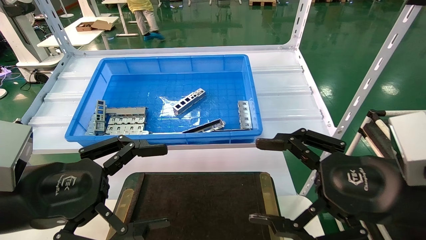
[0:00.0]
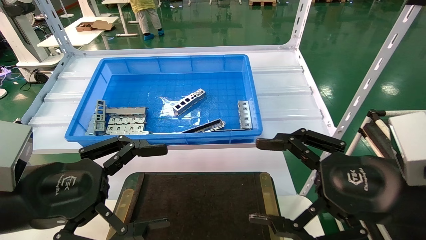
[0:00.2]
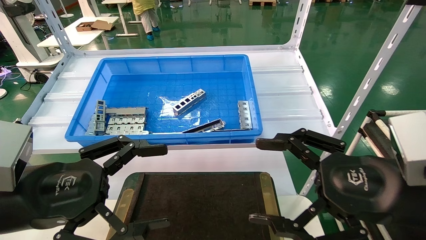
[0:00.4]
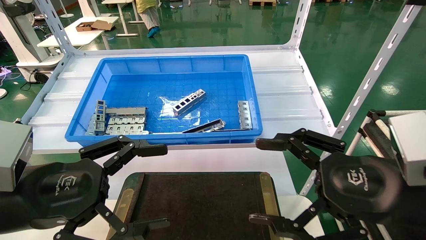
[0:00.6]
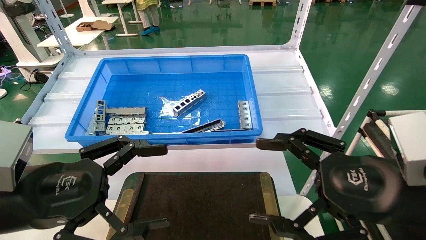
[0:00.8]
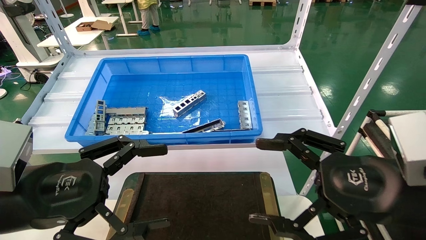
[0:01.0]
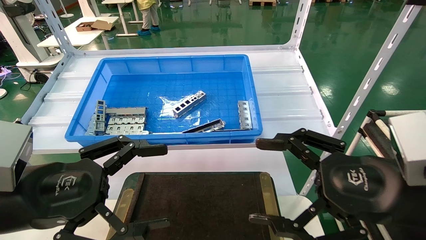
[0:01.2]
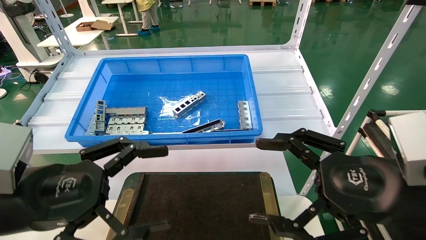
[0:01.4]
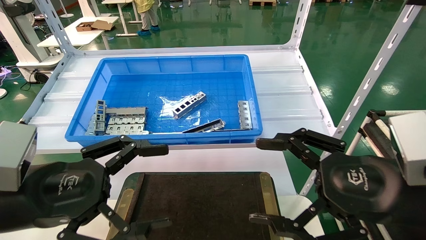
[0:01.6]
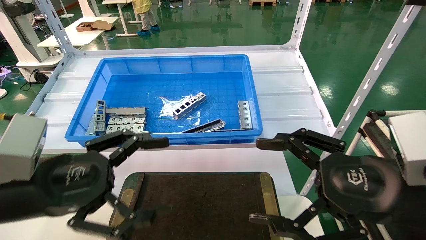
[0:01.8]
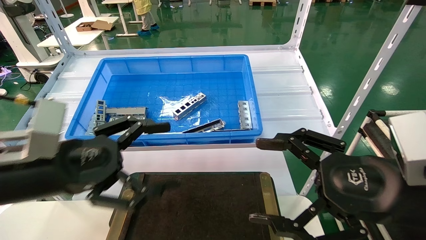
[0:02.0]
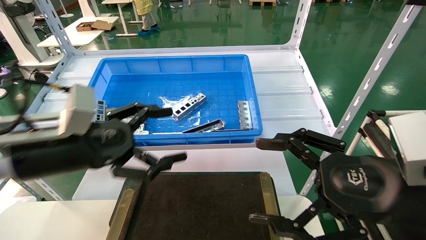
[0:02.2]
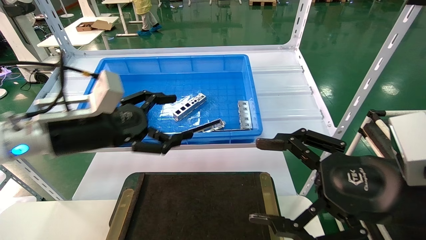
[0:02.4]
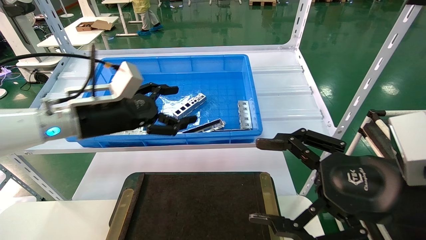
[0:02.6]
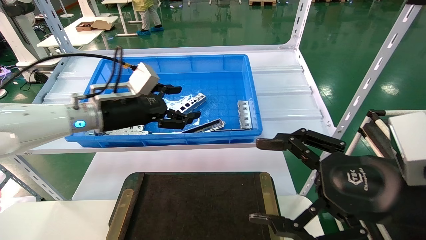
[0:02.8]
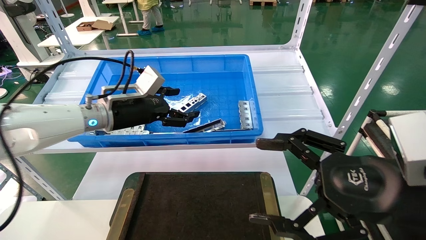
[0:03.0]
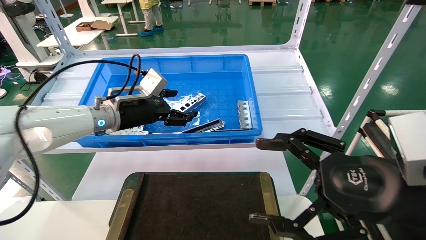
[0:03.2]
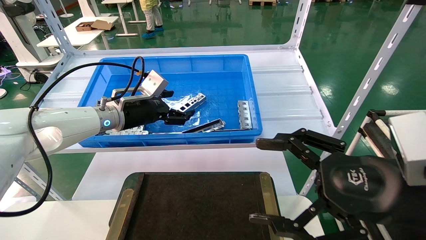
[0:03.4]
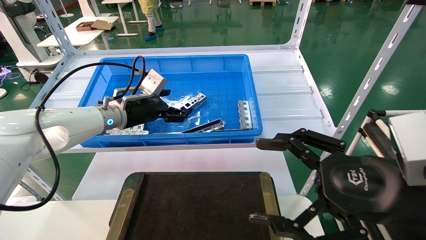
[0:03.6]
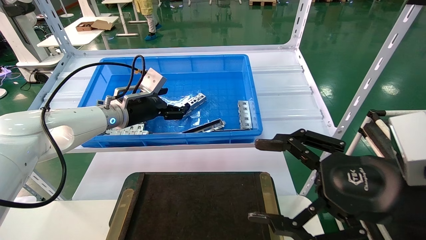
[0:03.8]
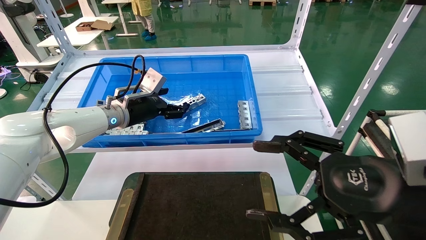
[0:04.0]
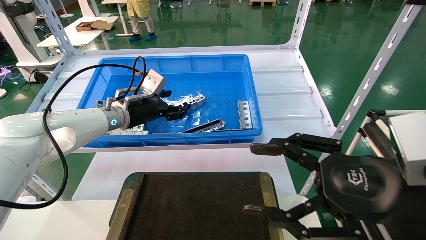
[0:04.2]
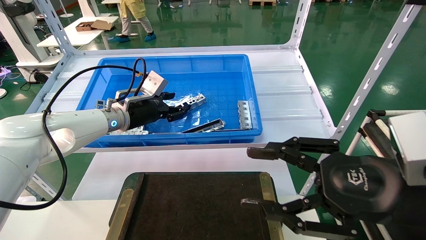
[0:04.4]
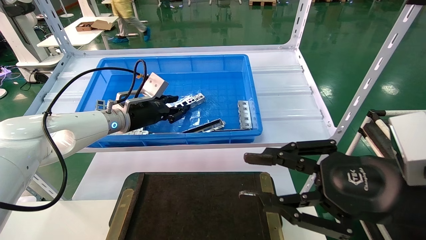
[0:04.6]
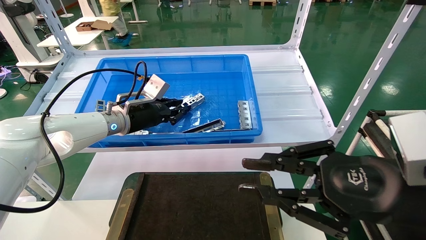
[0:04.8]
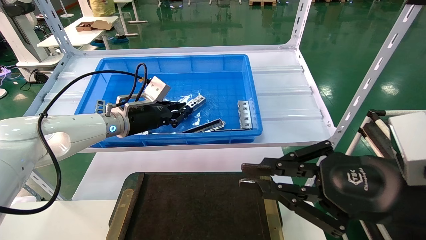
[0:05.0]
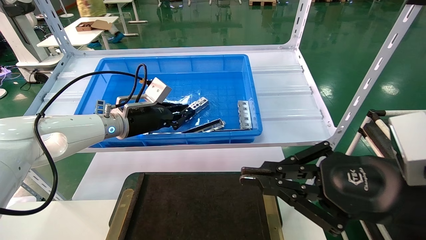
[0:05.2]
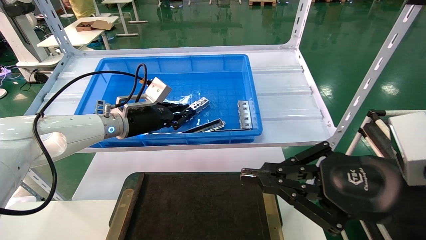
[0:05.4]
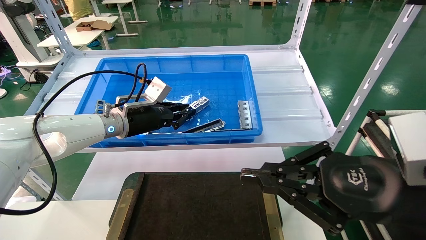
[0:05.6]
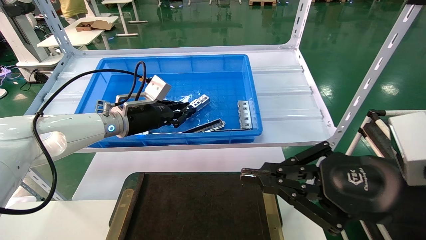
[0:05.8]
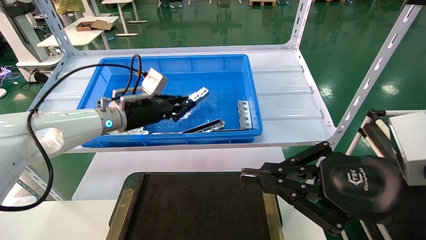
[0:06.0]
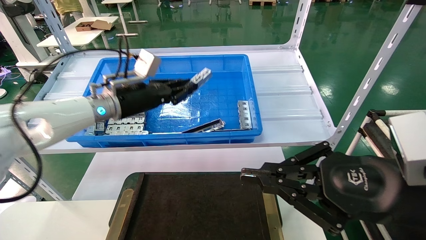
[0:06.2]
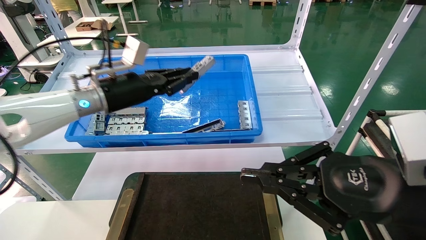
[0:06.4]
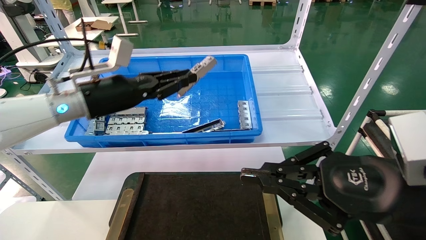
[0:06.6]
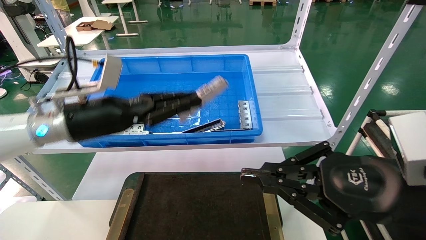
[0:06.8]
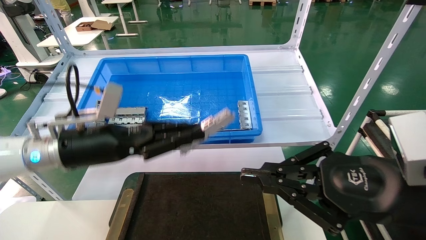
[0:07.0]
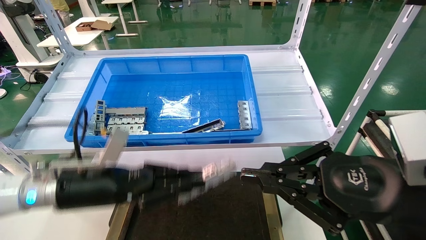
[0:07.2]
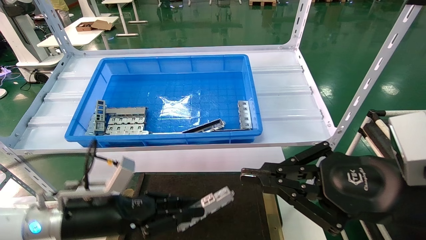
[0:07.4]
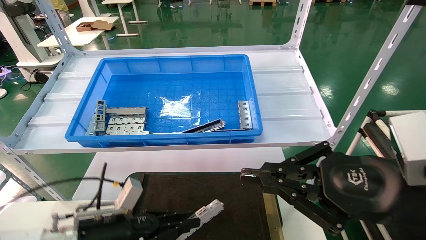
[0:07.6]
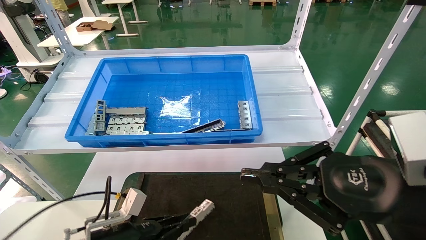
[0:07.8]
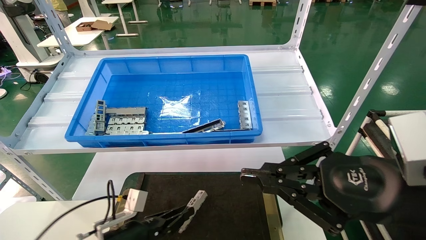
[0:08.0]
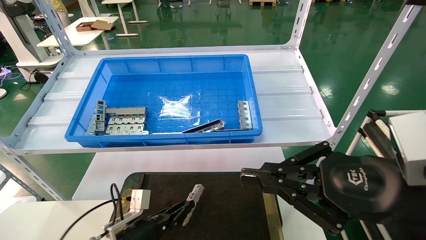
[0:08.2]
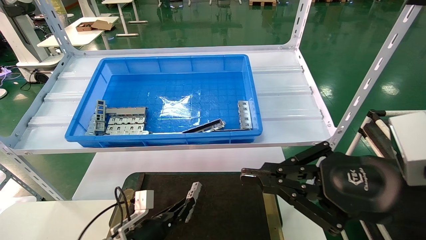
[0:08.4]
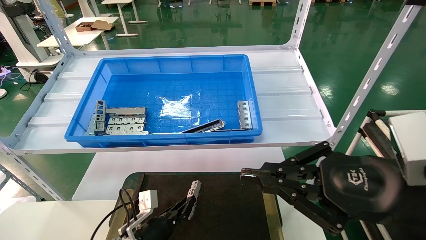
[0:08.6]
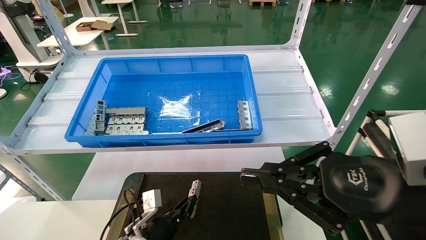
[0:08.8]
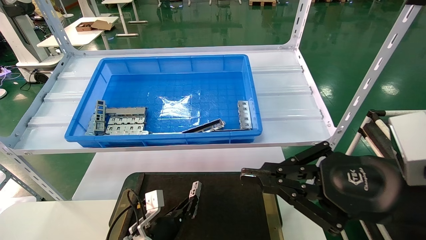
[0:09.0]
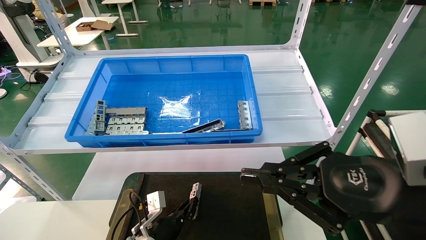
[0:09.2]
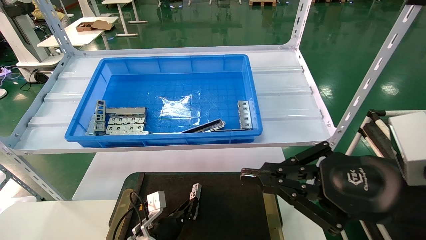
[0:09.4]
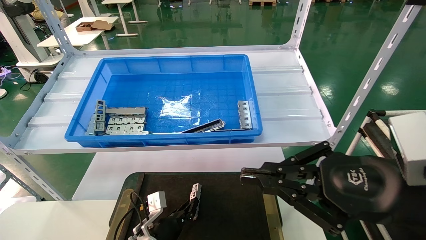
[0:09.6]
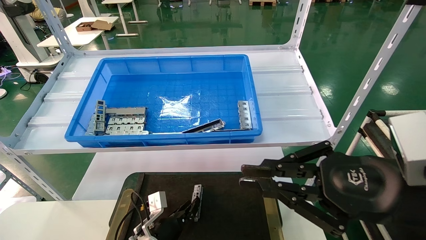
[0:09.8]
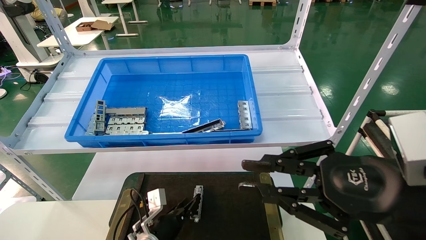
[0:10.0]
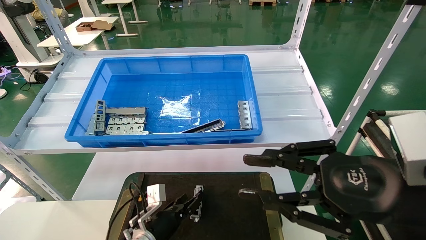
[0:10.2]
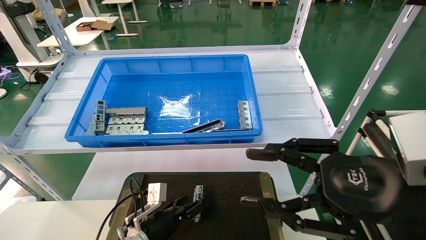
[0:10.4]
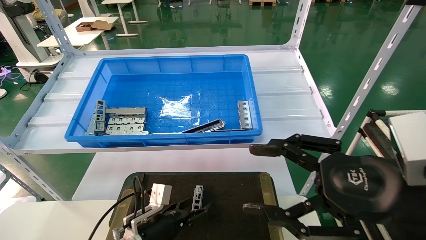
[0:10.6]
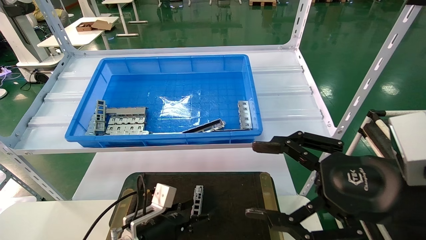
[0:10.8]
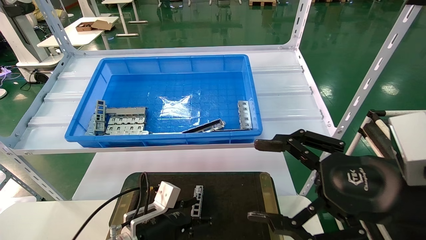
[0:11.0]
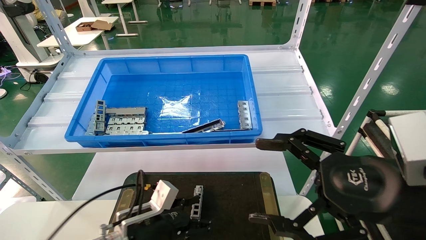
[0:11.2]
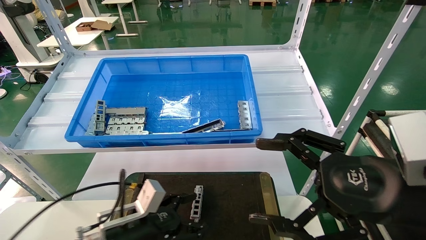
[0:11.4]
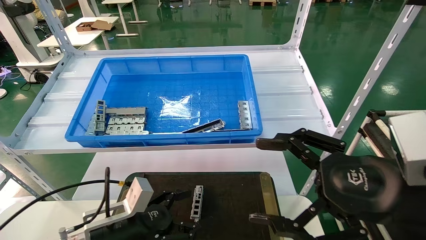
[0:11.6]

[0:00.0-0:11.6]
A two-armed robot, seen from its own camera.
Task of the whole recording: Grasp the part with one hand and place it on the black container.
Step, 2.0 to 5.2 s: Pick up the front USB bracket from the feeding area.
Step, 5.4 to 10.0 s: Place the front USB bracket into the box.
0.0 to 1.4 s: Both grippers stay put.
1.4 to 2.8 s: The left gripper shifts approximately 20 cm forward.
2.8 to 4.4 s: The left gripper heads forward, covering roughly 10 cm.
4.4 to 5.8 s: The left gripper closes, while the right gripper closes up.
5.8 to 7.2 s: The left gripper travels backward and downward by about 15 cm.
7.2 to 8.8 s: The left gripper goes roughly 25 cm downward.
8.8 to 10.2 s: The grippers move only a little.
10.2 to 11.6 s: The left gripper travels upward and backward by some 15 cm, and opens, while the right gripper opens its fingers.

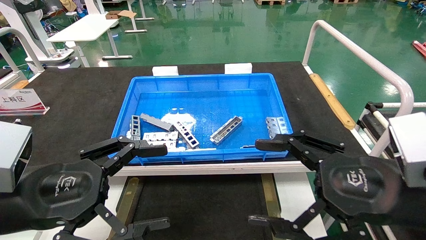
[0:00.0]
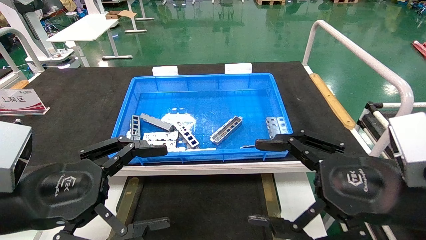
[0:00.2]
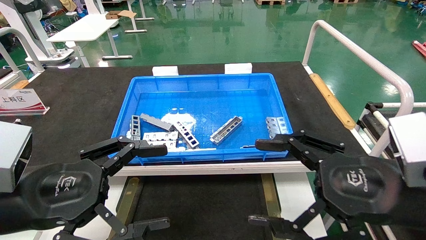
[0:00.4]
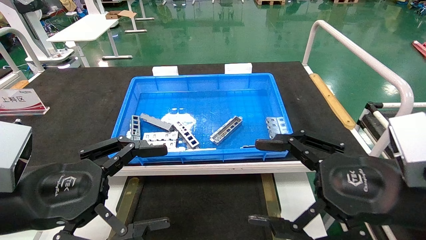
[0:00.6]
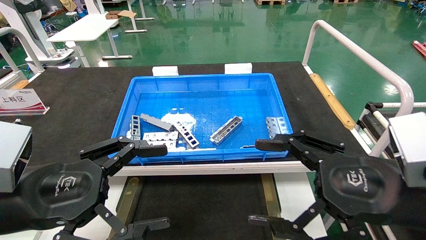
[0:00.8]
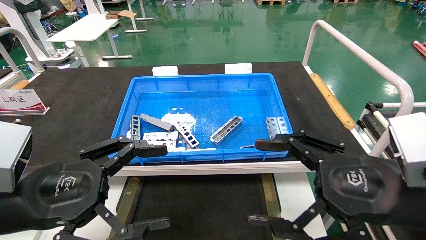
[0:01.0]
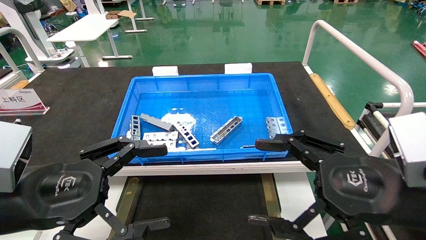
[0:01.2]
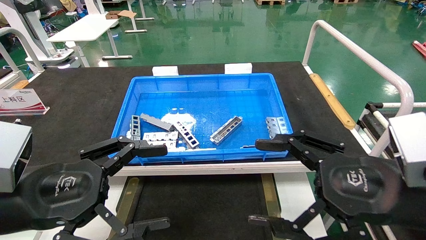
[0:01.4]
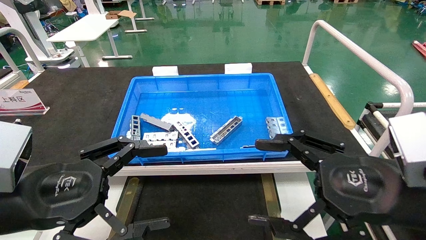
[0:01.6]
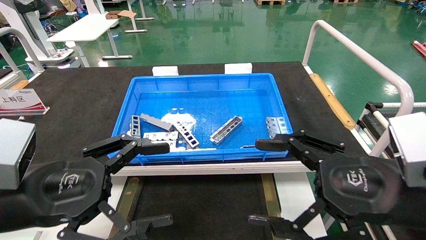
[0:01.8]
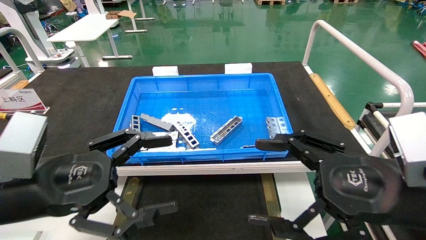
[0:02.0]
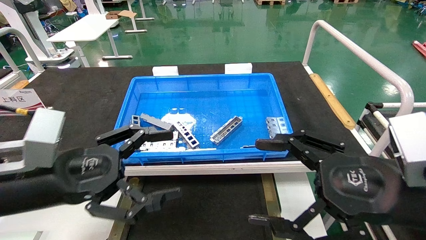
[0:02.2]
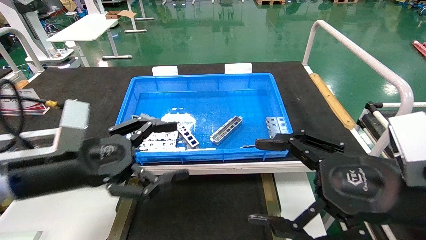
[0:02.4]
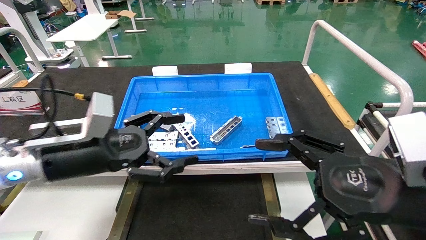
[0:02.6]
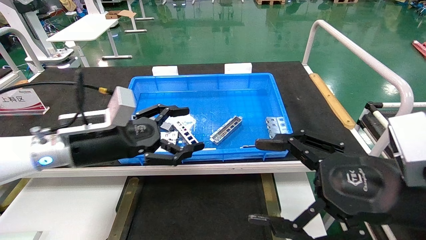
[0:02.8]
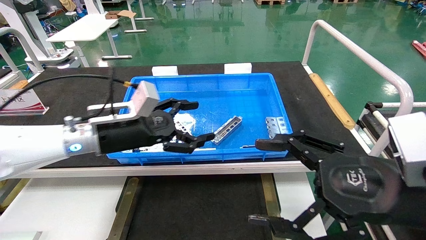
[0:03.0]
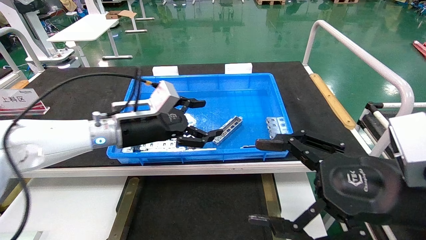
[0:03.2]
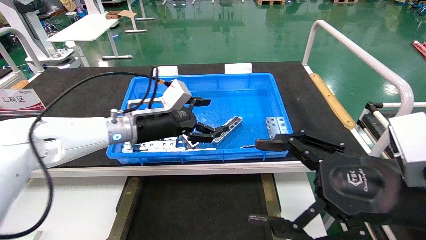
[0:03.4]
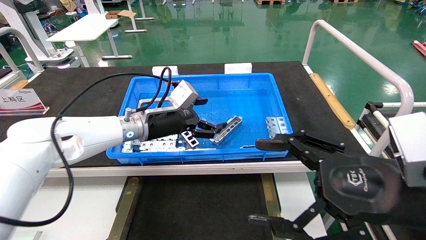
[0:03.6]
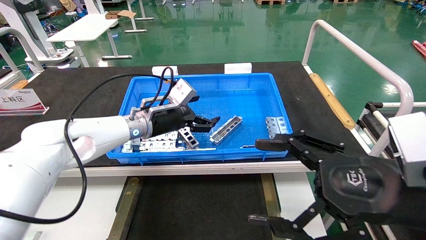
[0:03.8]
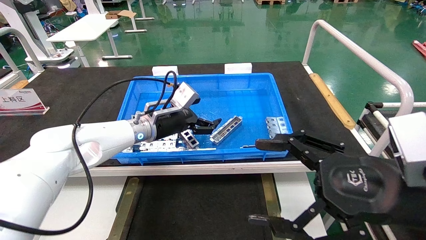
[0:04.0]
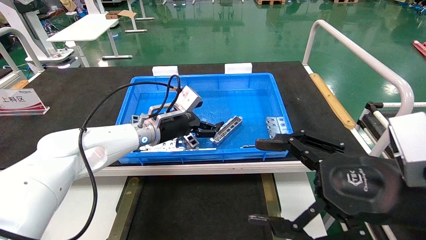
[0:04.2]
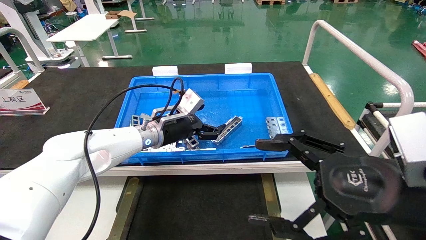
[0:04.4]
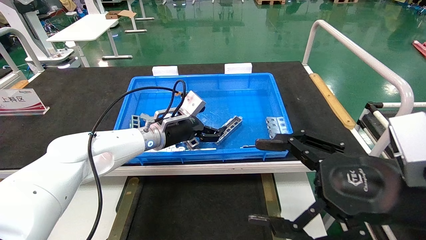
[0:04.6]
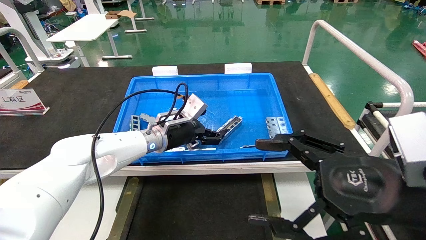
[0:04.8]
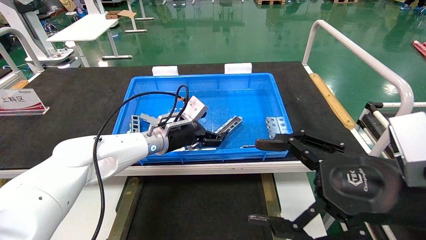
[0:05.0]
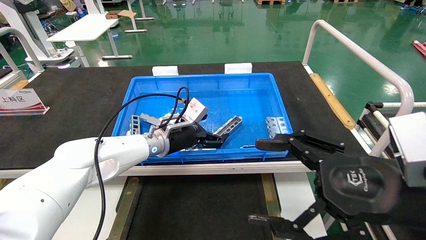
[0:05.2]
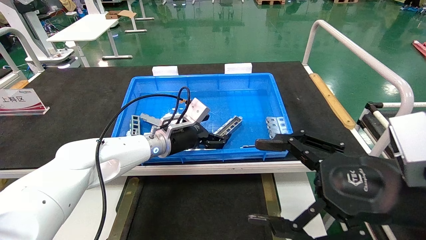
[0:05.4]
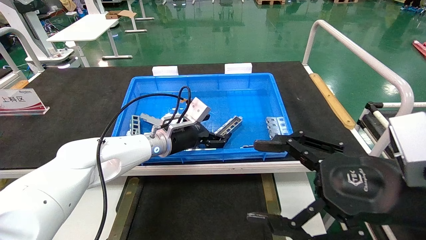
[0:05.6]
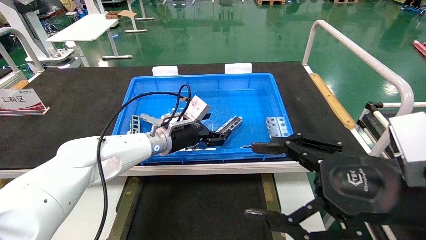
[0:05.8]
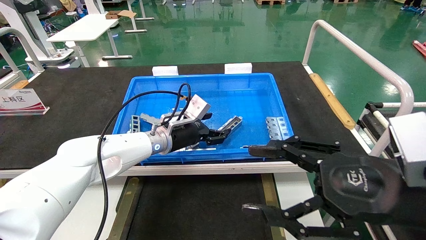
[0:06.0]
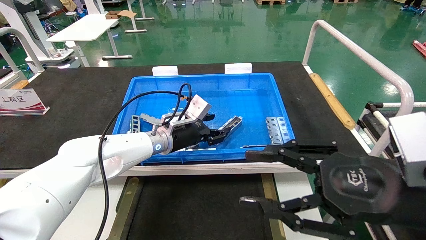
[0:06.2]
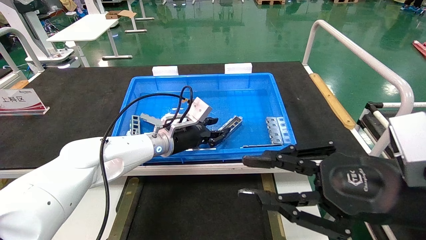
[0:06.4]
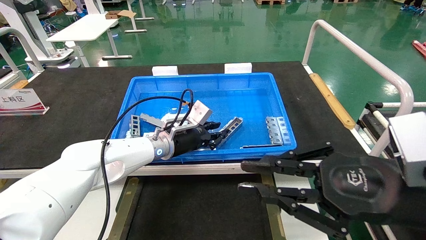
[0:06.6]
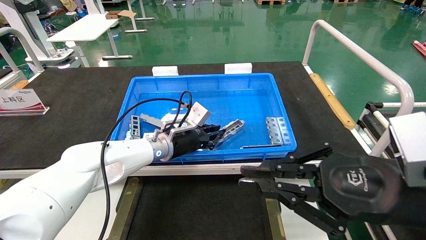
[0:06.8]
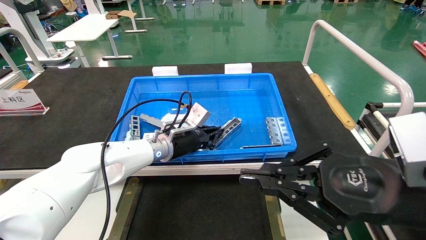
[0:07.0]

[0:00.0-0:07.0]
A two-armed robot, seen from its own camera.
Task of the whole recording: Grasp the part with one hand and place it on the black container.
Step, 2.0 to 7.0 s: Pick up the front USB bracket from the feeding area.
0.0 to 1.4 s: Neither gripper changes place.
1.4 to 2.8 s: The left gripper shifts about 15 cm forward.
2.8 to 4.2 s: The left gripper travels forward and to the right by some 15 cm.
4.2 to 5.6 s: There are only small adjustments of the grippers.
5.6 to 7.0 s: The left gripper closes, while the right gripper closes up.
